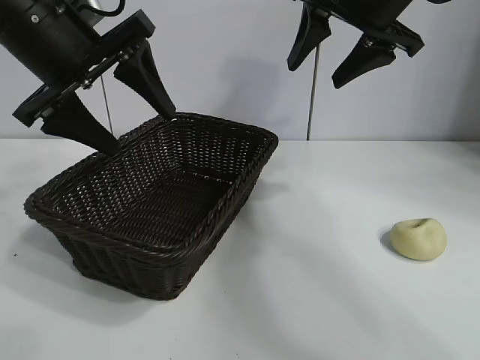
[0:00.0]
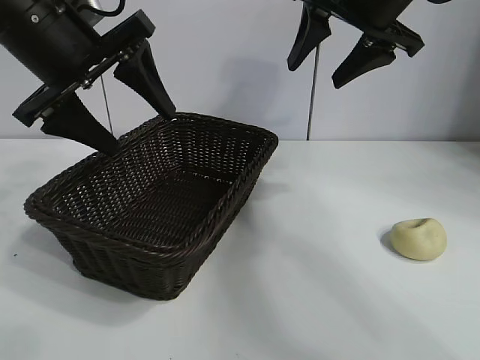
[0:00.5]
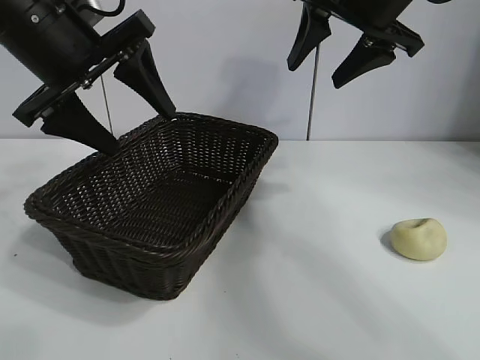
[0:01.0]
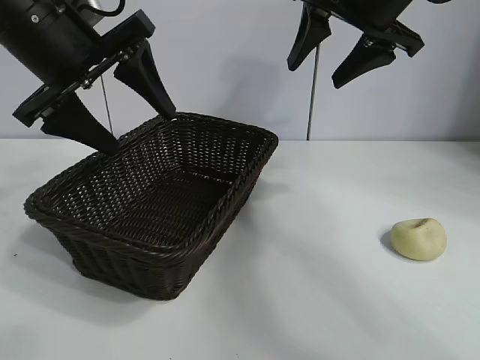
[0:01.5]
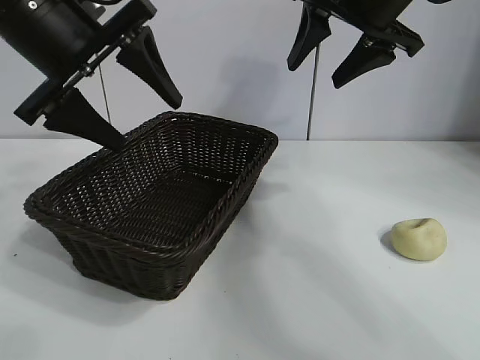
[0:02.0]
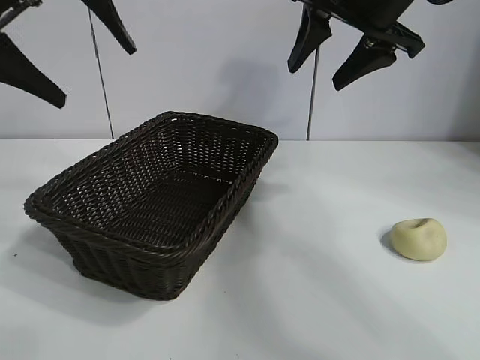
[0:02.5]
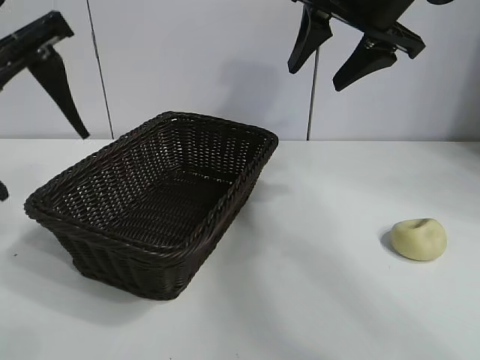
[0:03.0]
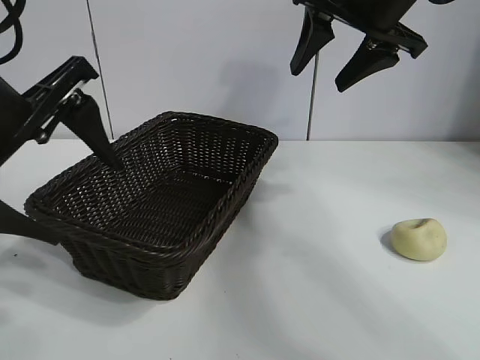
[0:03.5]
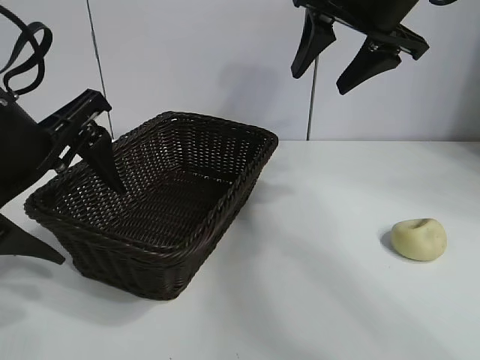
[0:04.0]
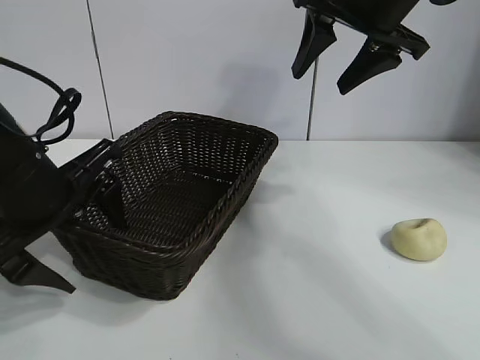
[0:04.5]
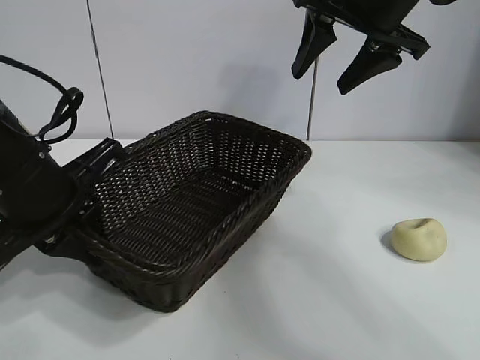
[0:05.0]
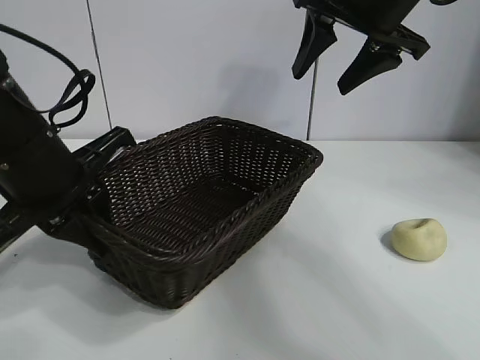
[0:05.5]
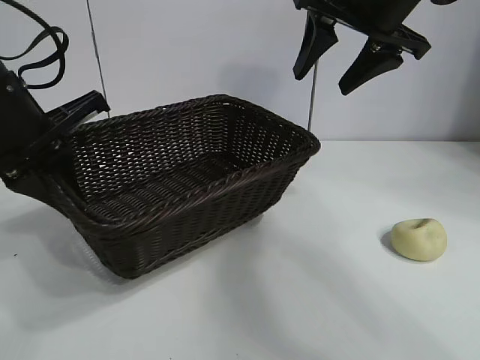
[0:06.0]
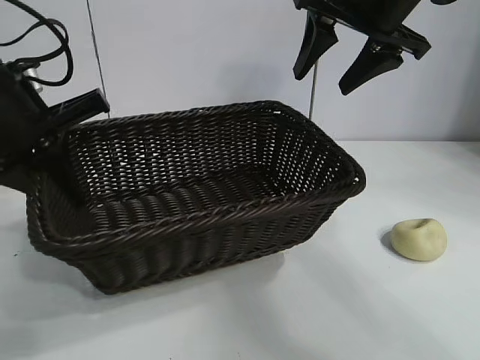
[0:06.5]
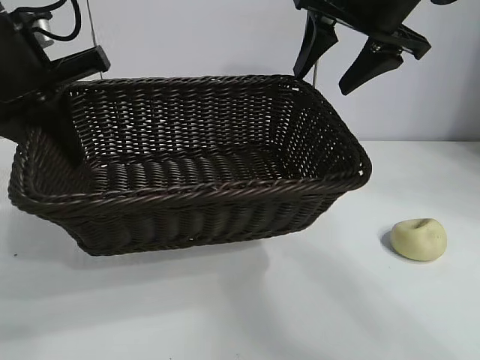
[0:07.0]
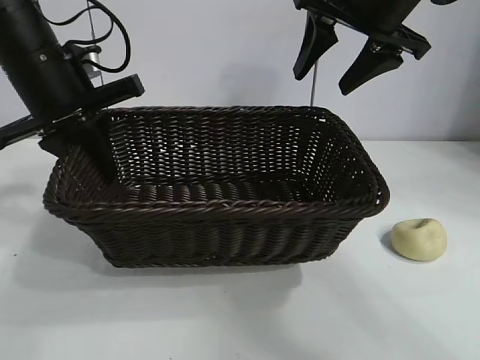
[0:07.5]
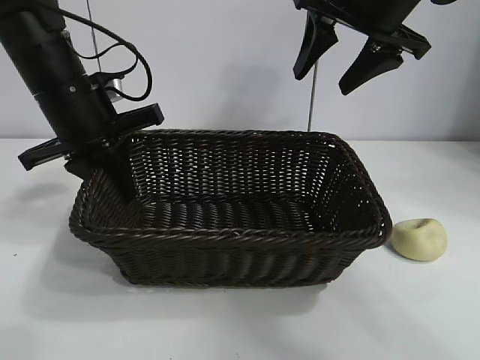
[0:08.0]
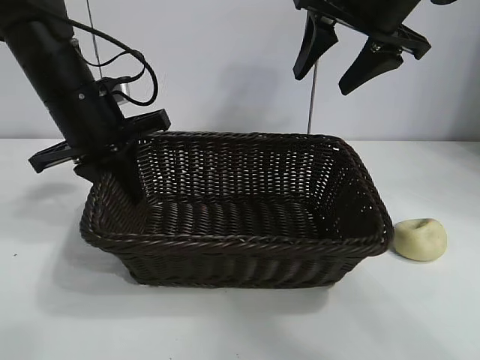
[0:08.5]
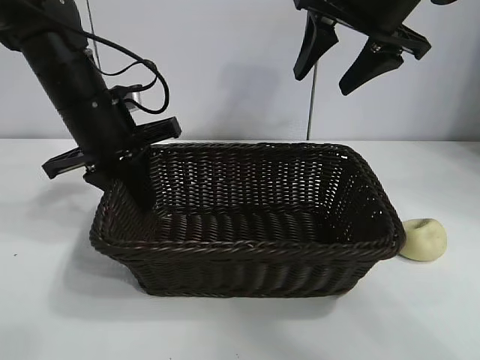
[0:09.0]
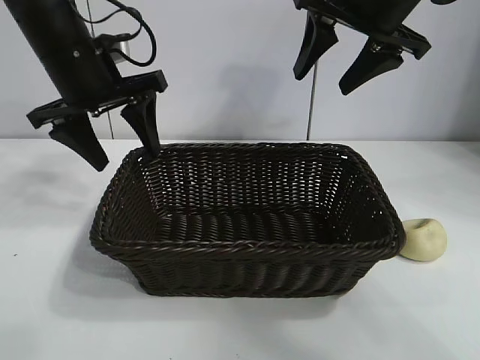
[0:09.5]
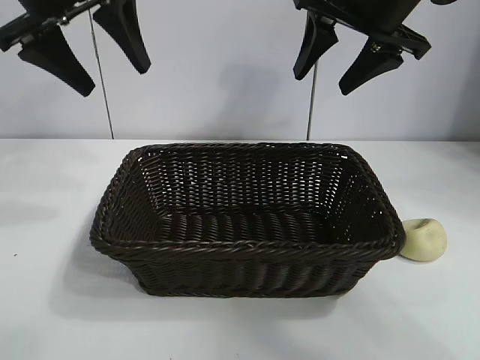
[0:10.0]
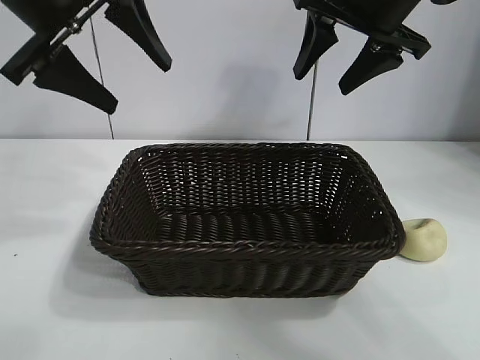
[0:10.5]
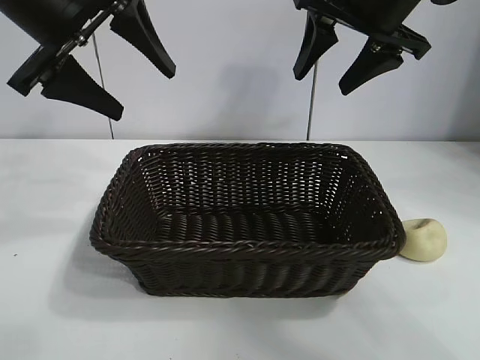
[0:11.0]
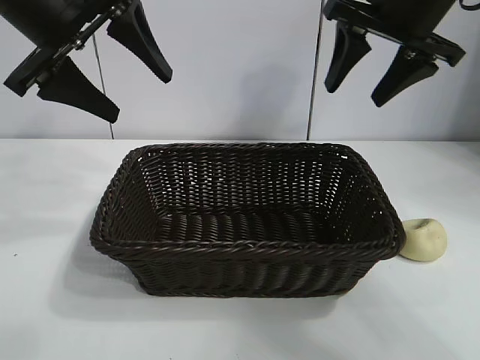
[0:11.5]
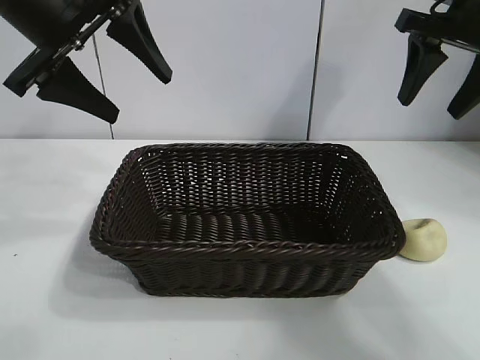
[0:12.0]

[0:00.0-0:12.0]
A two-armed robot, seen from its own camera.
Task of the whole recording: pick up the egg yolk pastry and put it into the basket.
Step, 0:02.0 to 0:04.5: Grasp the basket with left gripper.
Step, 0:05.0 to 0:09.0: Place the basket in the center of view with left gripper.

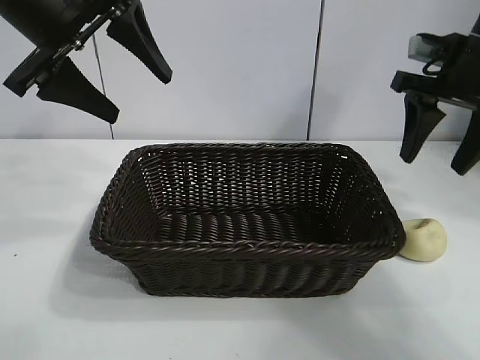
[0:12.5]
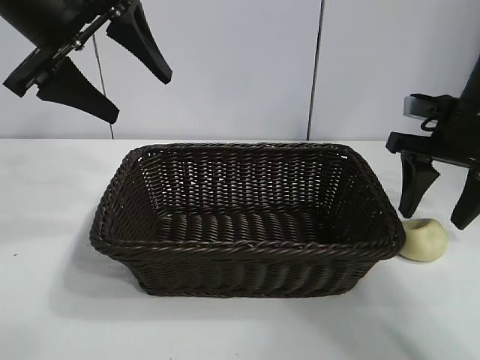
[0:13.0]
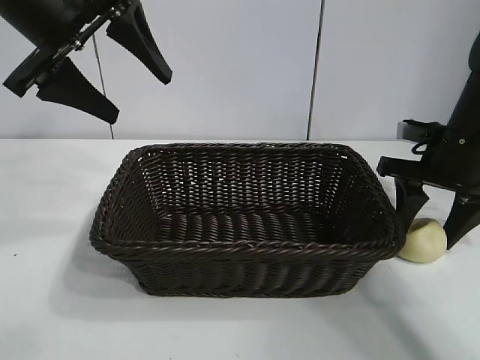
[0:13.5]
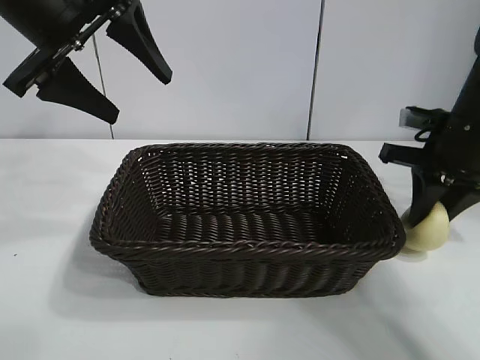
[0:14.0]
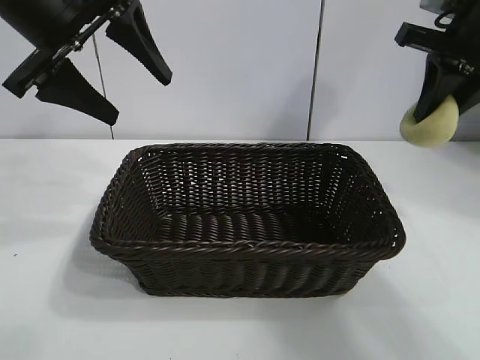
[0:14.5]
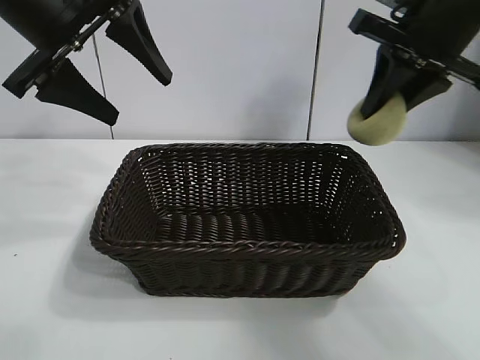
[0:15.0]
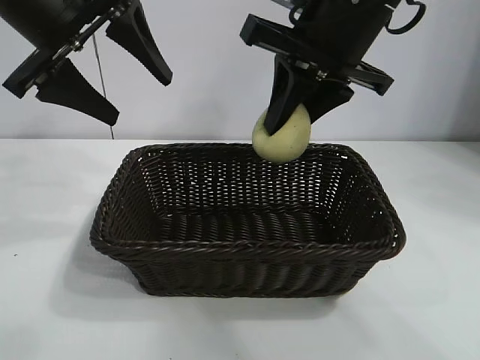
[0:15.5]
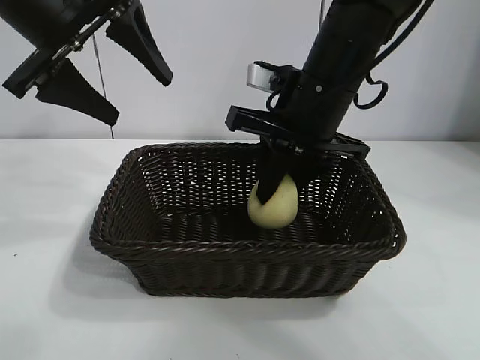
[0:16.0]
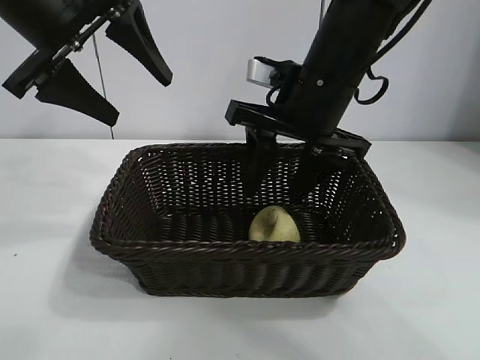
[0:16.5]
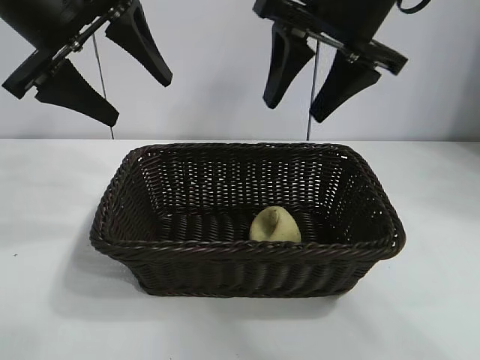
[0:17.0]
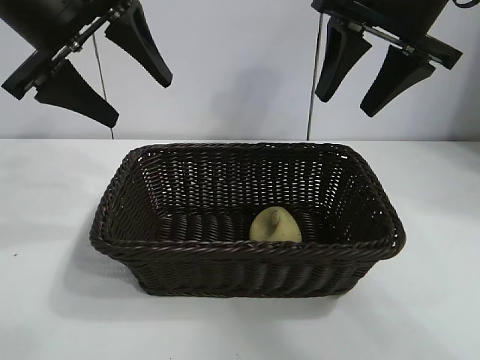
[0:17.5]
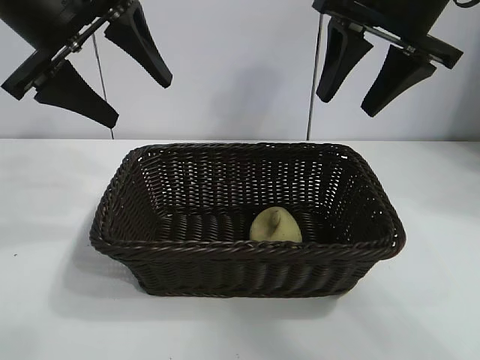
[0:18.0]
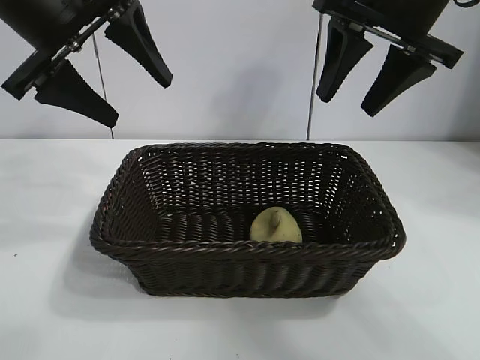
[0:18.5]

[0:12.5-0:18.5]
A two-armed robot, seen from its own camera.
Task of the whole recording: pick up the egg yolk pastry and put it into the basket.
Step, 0:14.0 to 0:16.0: Place the egg yolk pastry in the basket with right gripper.
